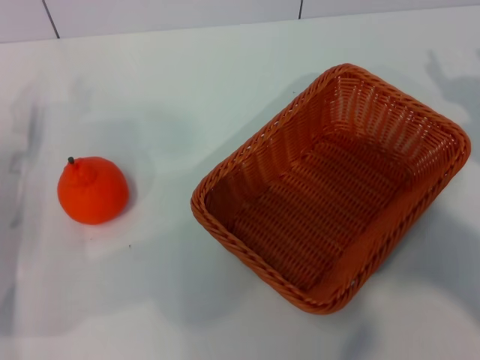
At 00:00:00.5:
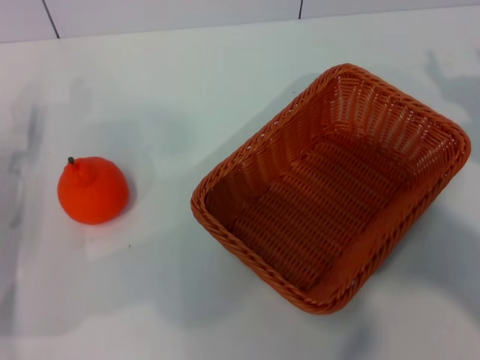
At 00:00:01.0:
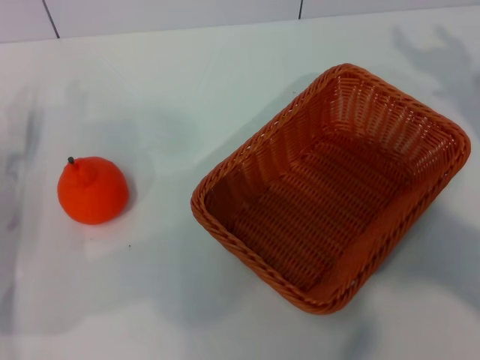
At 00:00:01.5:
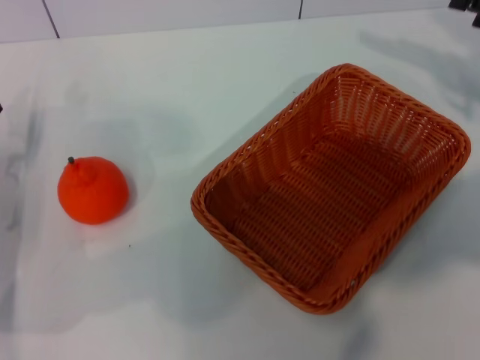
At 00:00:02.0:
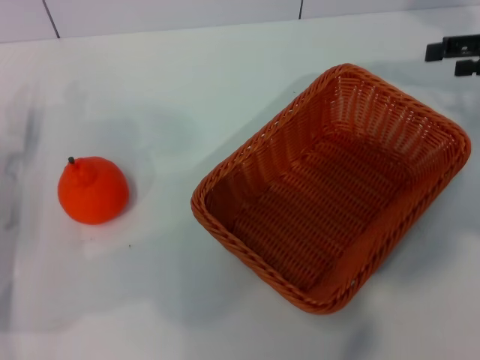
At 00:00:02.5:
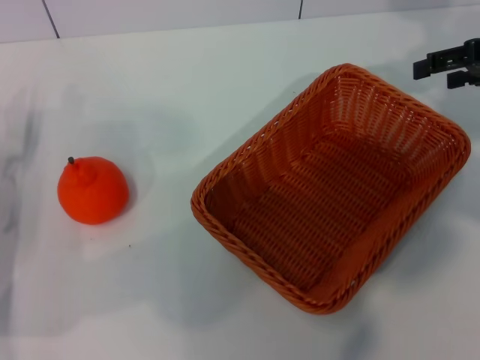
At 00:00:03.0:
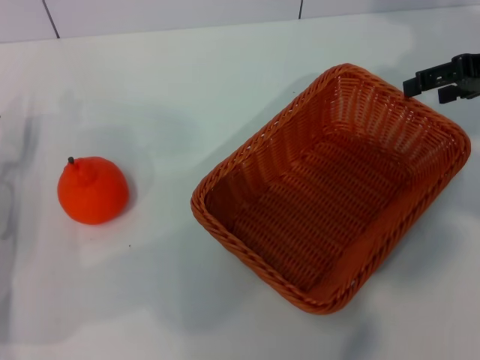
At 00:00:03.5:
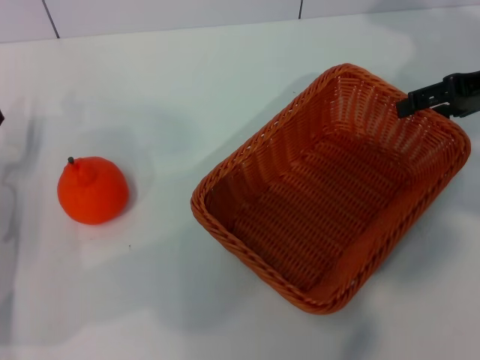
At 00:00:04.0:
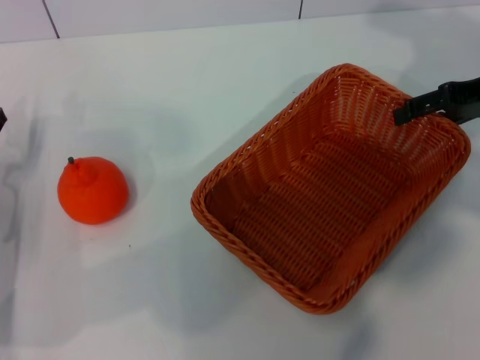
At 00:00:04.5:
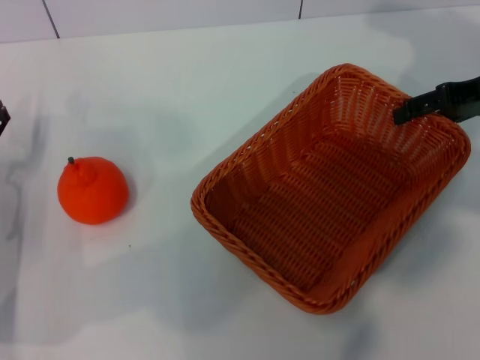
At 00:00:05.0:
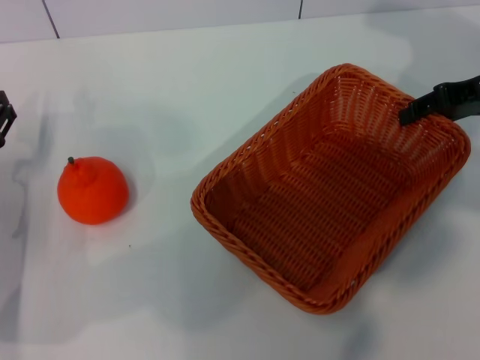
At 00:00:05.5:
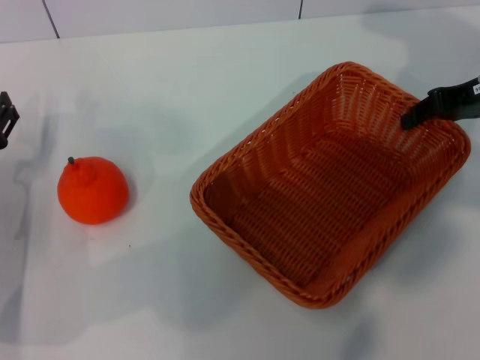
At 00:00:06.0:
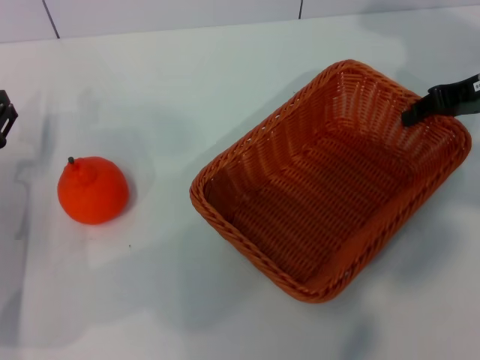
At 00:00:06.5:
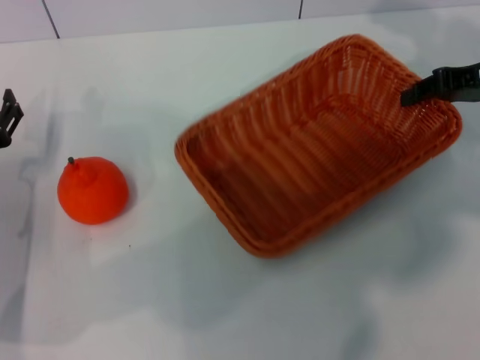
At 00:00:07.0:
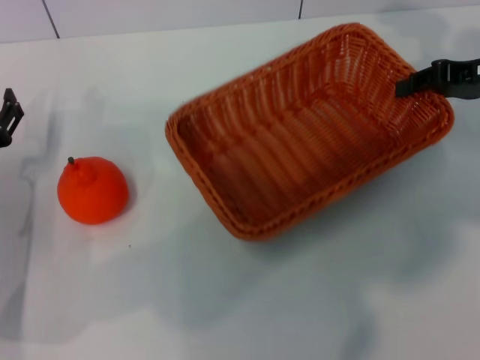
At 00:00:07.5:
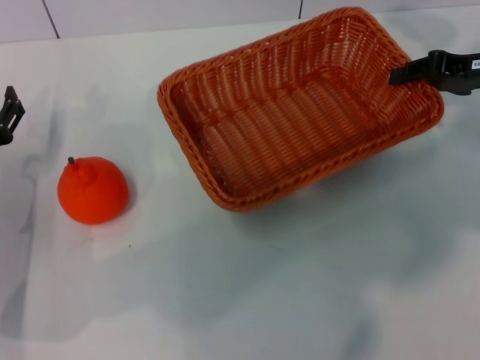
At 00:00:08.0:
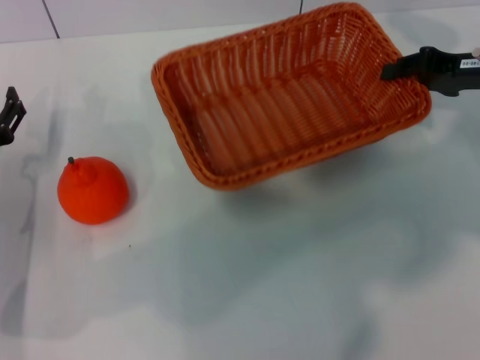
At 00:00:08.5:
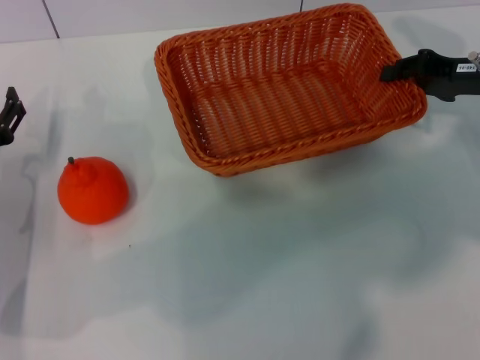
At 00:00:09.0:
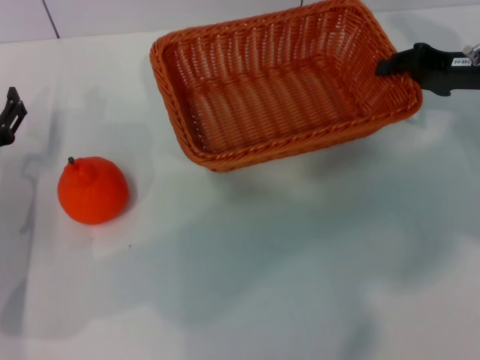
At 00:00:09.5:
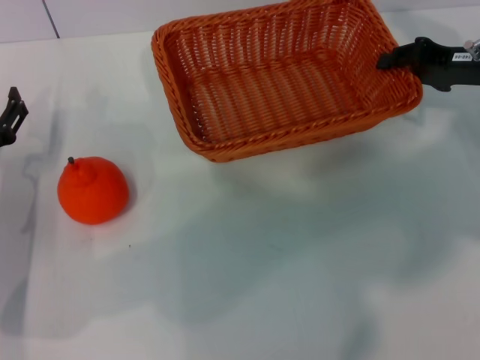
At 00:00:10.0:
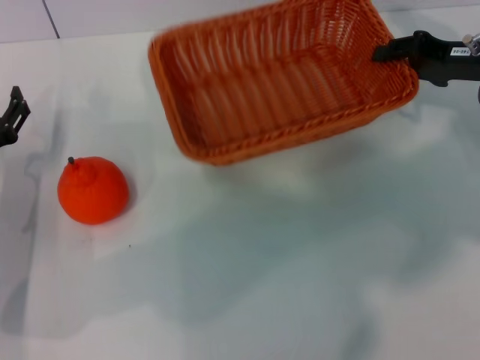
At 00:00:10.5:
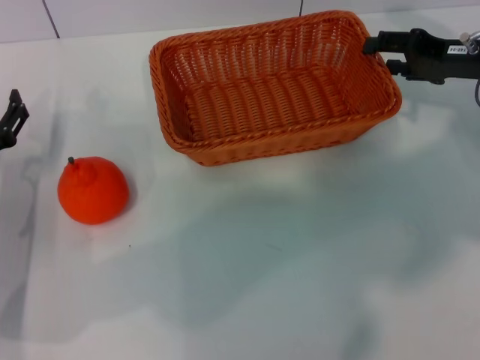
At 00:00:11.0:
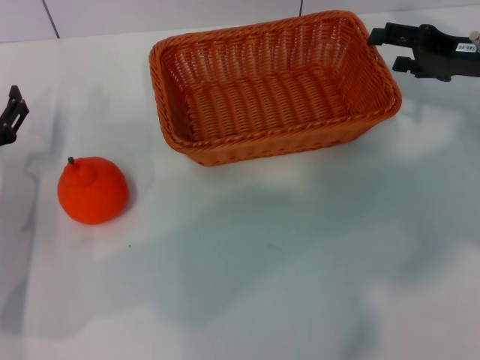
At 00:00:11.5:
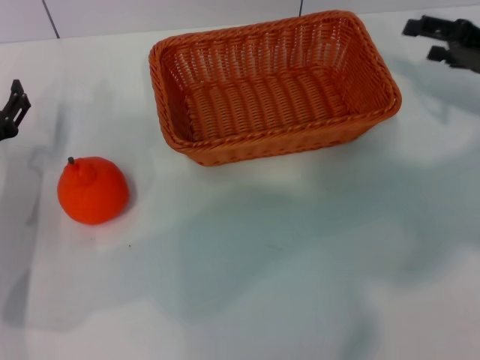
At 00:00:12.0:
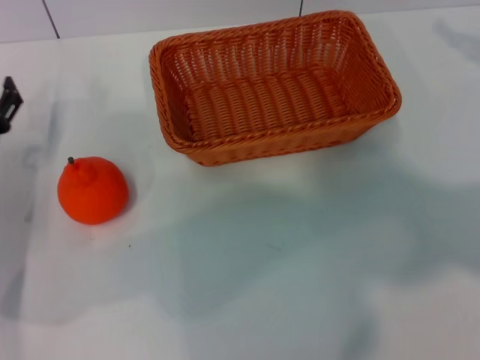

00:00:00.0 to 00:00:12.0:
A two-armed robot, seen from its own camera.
Task of the whole recording: the right gripper pick up the yellow basket and place it horizontally in the middle of the table, the left gripper pick up the orange and place it into the yellow basket.
Step, 00:00:00.0 to 00:00:06.5: Pick up the light basket with the right gripper.
Step, 00:00:07.0 to 00:00:11.0: Place the light basket in the center of view with the right gripper.
00:00:00.0 to 00:00:02.0: The right gripper travels upward and forward by some 15 cm.
00:00:02.0 to 00:00:04.0: There are only small adjustments of the grippers.
00:00:04.0 to 00:00:06.0: The right gripper closes its fingers.
00:00:08.0 to 00:00:10.0: The grippers stay close to where they were, moving slightly.
00:00:10.0 to 00:00:12.0: The right gripper goes roughly 10 cm to the right, and opens up.

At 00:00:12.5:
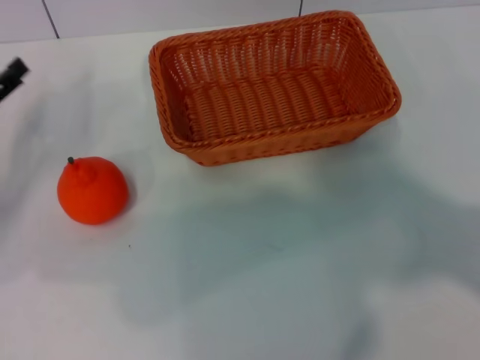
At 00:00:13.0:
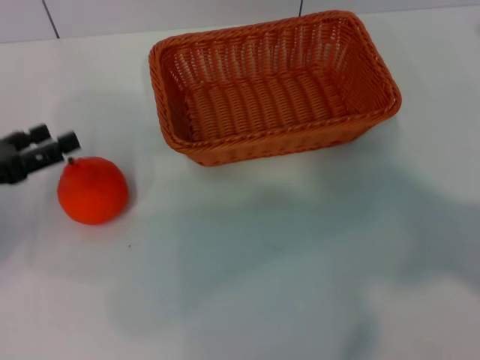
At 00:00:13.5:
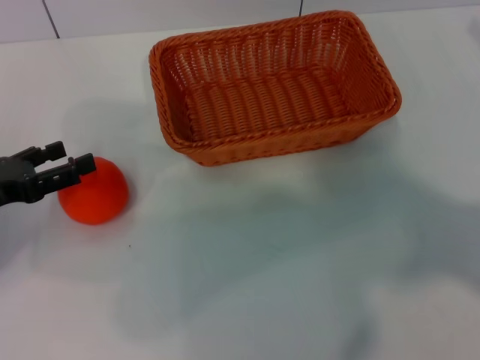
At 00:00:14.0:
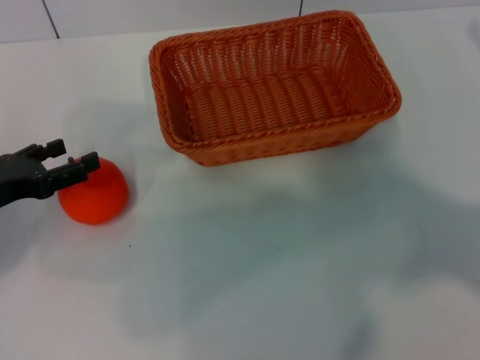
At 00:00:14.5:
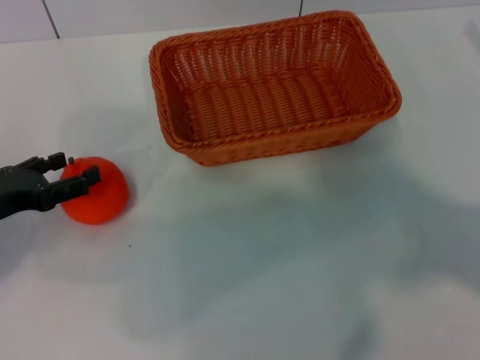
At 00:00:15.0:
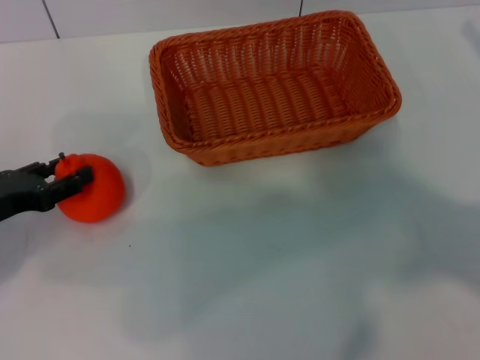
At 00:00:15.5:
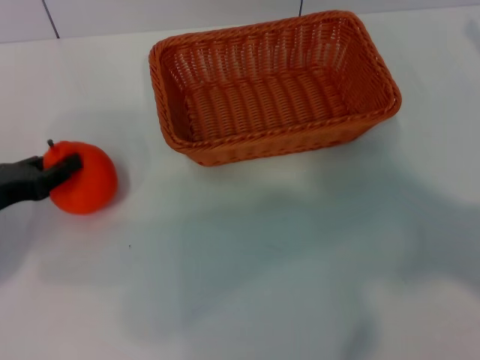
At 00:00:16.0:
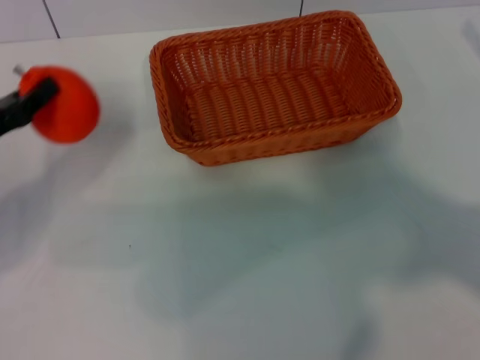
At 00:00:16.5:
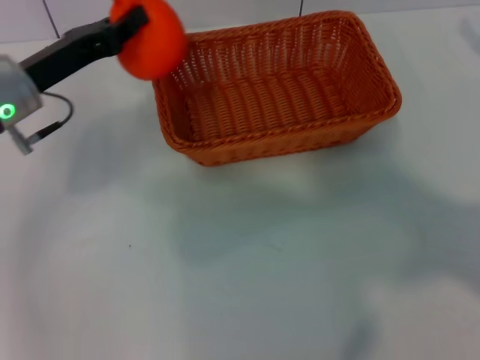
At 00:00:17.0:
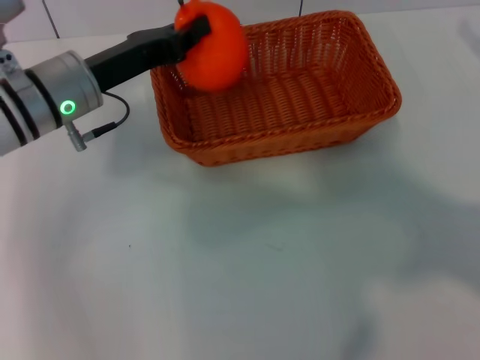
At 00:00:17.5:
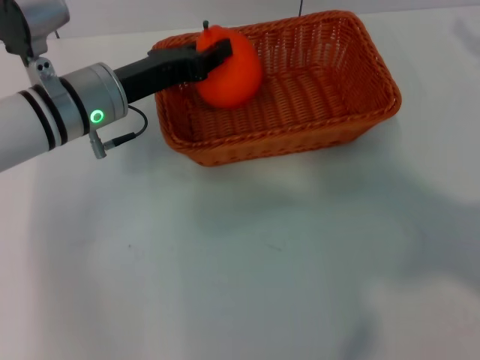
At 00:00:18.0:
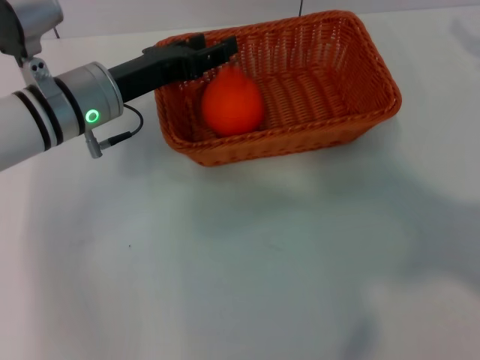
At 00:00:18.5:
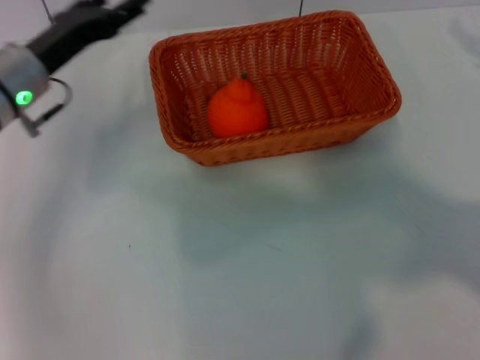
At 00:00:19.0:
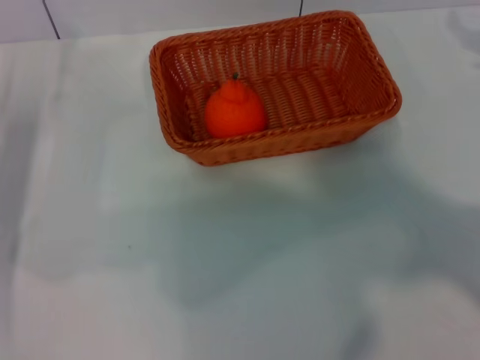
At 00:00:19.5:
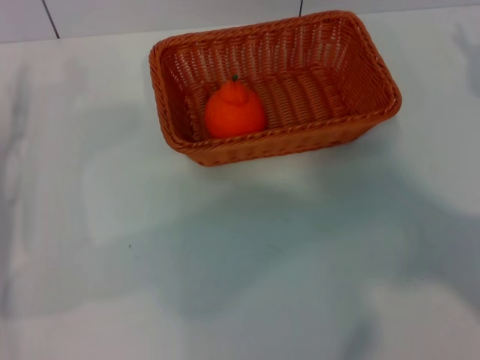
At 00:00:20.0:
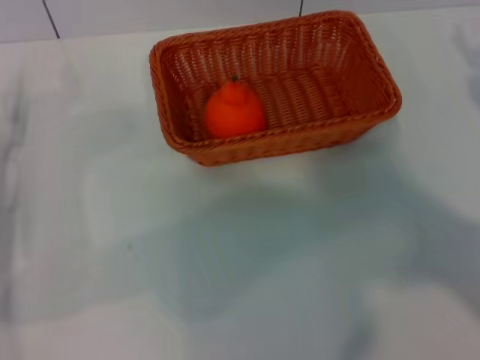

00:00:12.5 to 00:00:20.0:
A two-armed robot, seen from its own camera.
Task of the whole recording: the right gripper pick up the yellow basket and place it horizontally in the middle of the table, the left gripper pick up the orange and place it into the yellow basket.
Step, 00:00:12.5 to 00:00:15.5: Pick up the orange with the left gripper.
Step, 00:00:16.0 to 00:00:18.0: Place the orange into the light basket with the left gripper.
00:00:14.5 to 00:00:16.5: The left gripper goes roughly 15 cm forward, to the right and upward, and closes up.
00:00:16.5 to 00:00:18.0: The left gripper heads to the right, covering roughly 5 cm, and opens up.
00:00:18.0 to 00:00:20.0: The left gripper is displaced to the left, backward and downward by some 15 cm, and opens its fingers.
